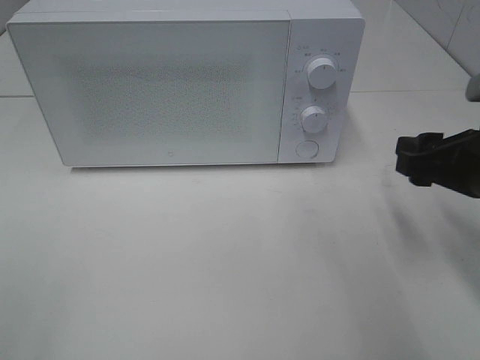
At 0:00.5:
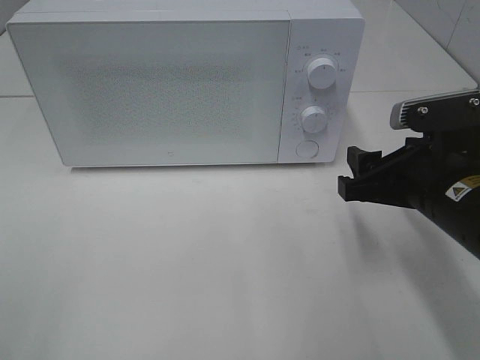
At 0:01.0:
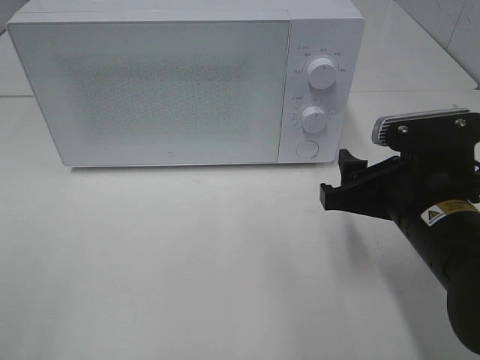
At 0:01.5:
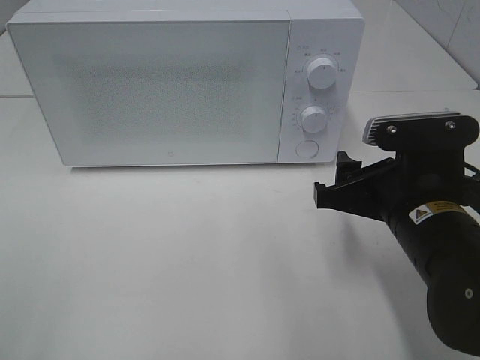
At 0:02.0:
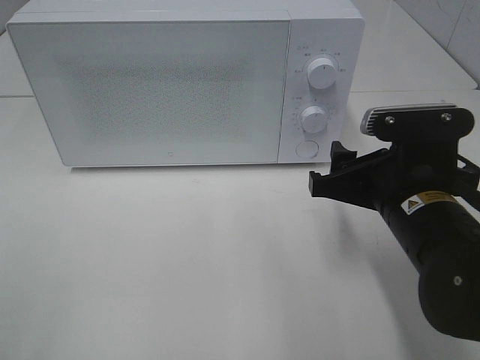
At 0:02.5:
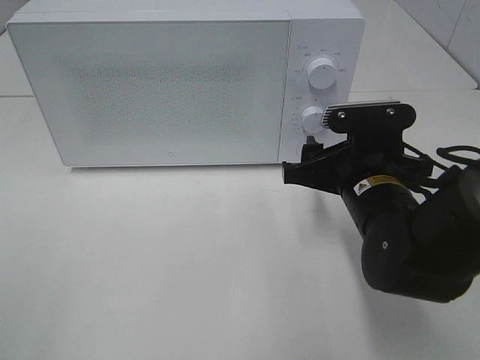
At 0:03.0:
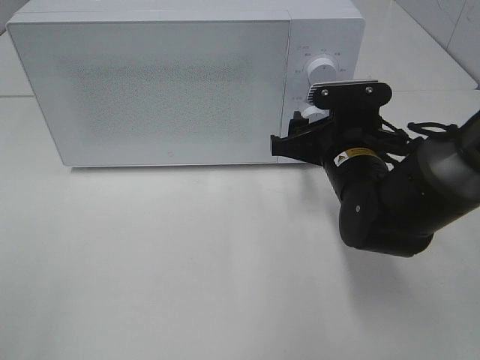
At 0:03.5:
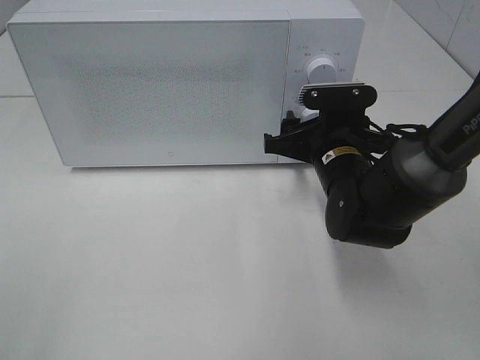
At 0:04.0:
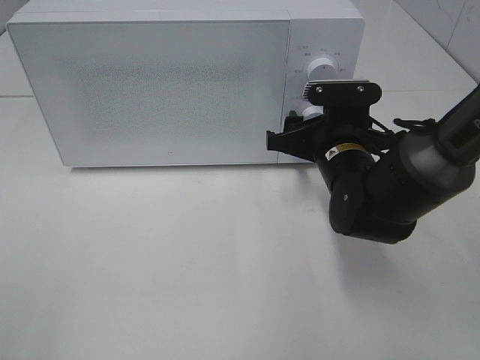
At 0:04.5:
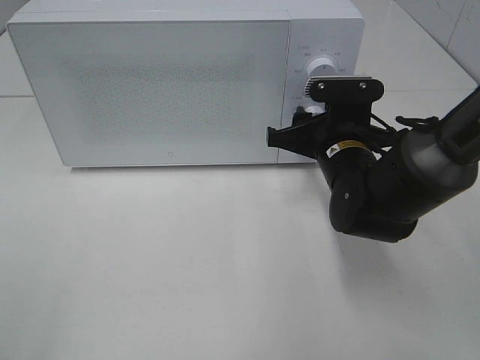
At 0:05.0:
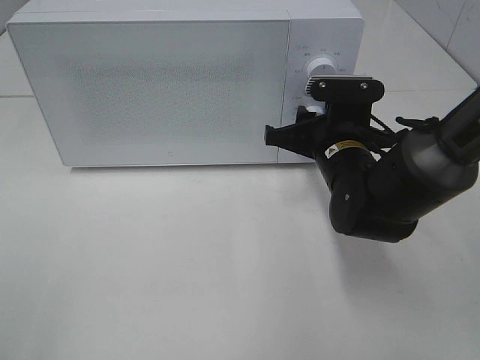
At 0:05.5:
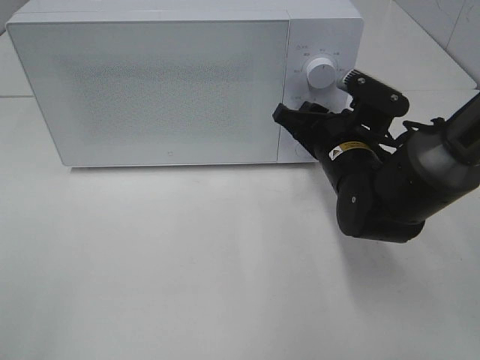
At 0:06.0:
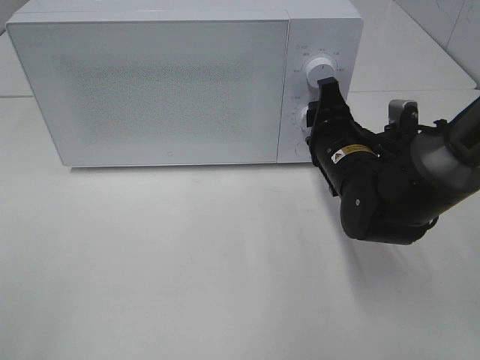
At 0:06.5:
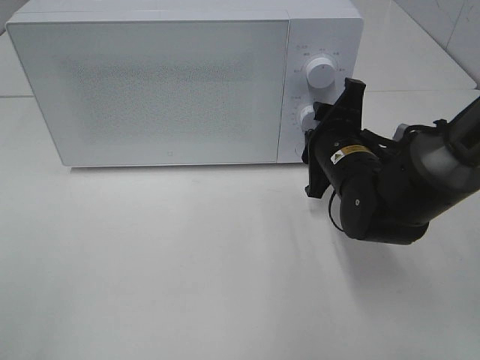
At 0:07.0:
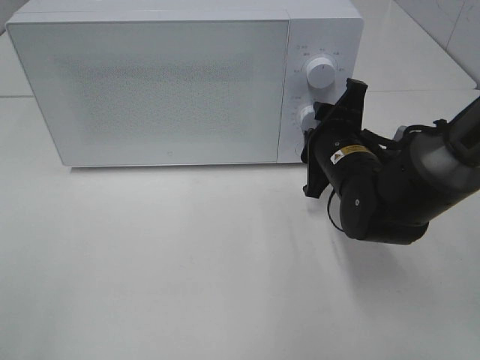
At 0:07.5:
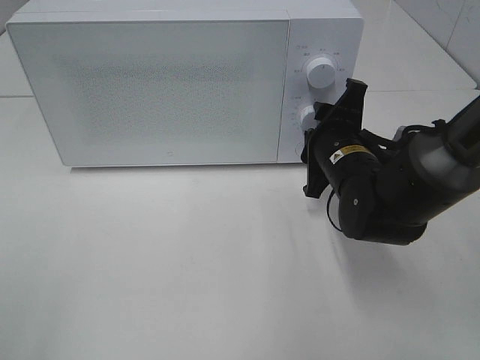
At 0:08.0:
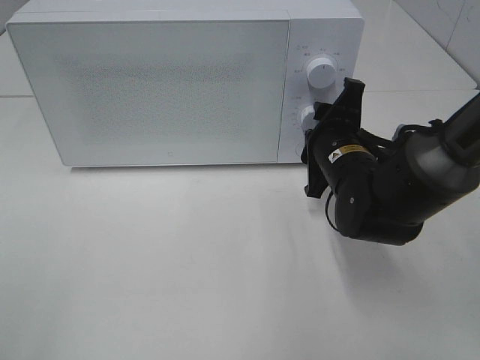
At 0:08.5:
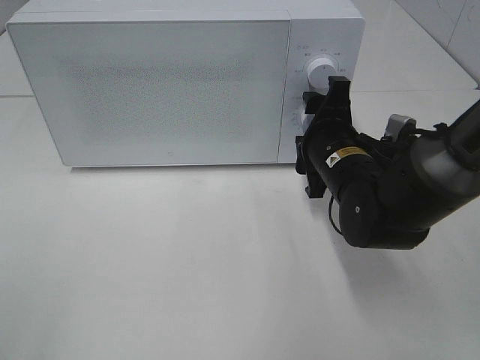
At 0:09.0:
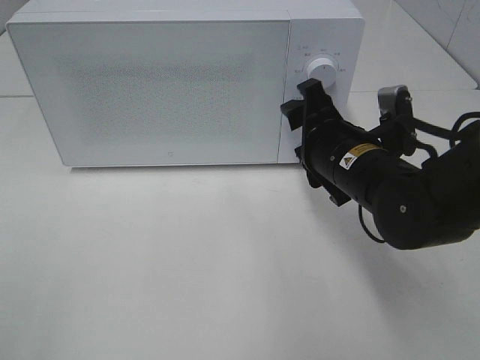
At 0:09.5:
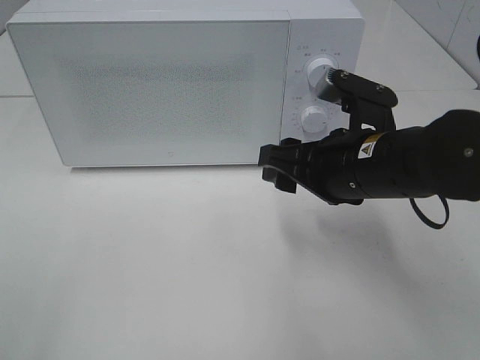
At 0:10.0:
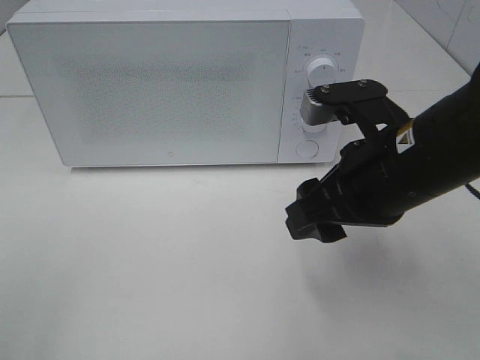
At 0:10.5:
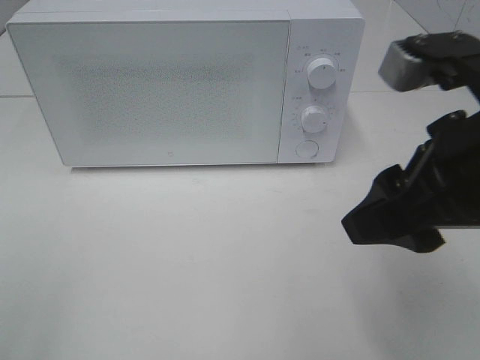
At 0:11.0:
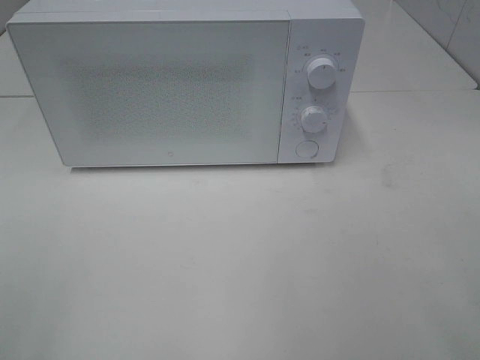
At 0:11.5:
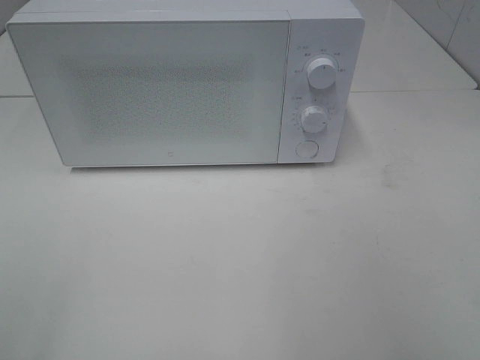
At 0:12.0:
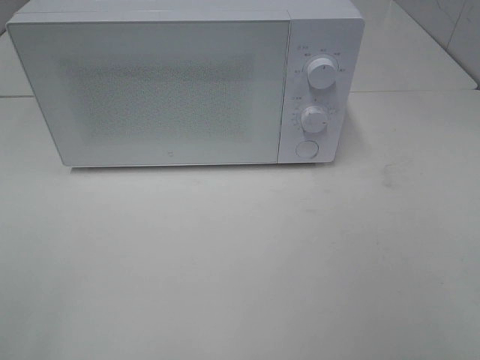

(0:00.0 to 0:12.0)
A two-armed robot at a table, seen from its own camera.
Task of the whole recording: Heat the burger.
Step, 0:00.0 - 0:08.0: Right hand: twist timer button.
0:00.0 - 0:02.0: The right gripper is displaced to the left by some 10 cm.
0:02.0 - 0:04.0: The right gripper moves forward, some 10 cm.
0:08.0 - 0:10.0: The right gripper moves backward and upward, about 15 cm.
0:10.0 - 0:12.0: The right gripper heads backward and to the right, covering roughly 25 cm.

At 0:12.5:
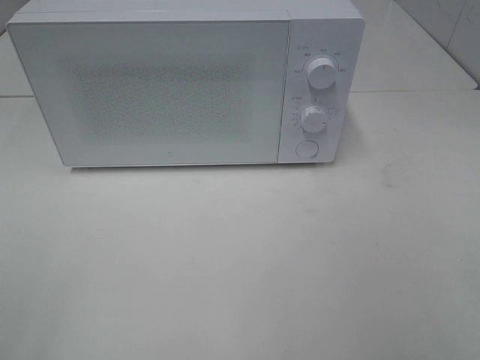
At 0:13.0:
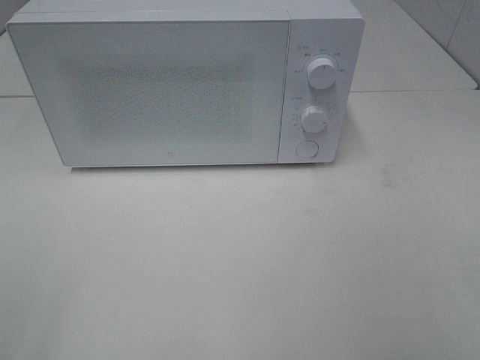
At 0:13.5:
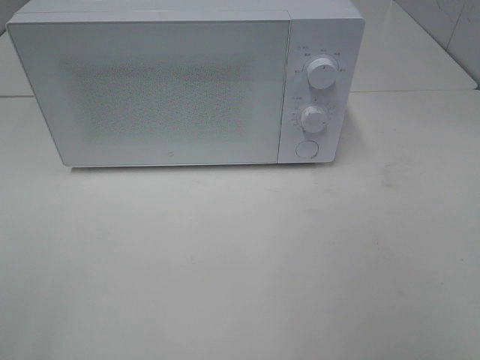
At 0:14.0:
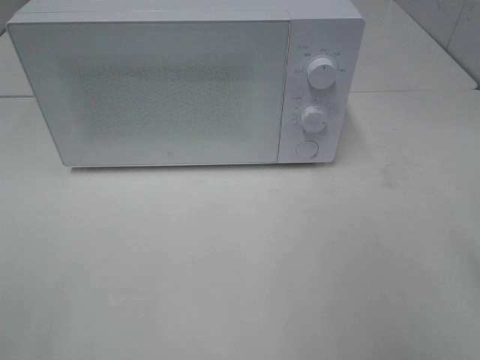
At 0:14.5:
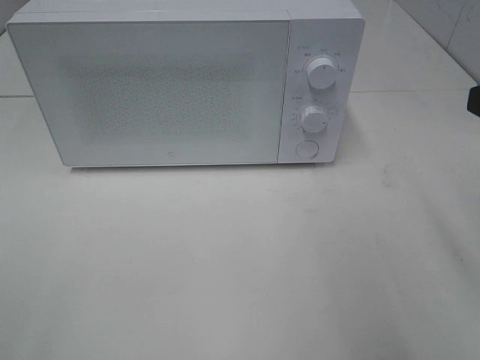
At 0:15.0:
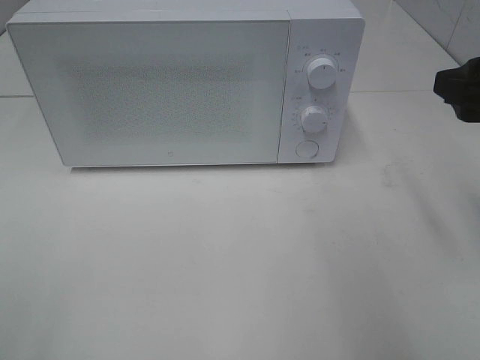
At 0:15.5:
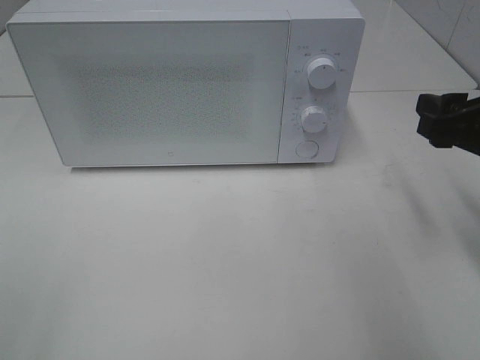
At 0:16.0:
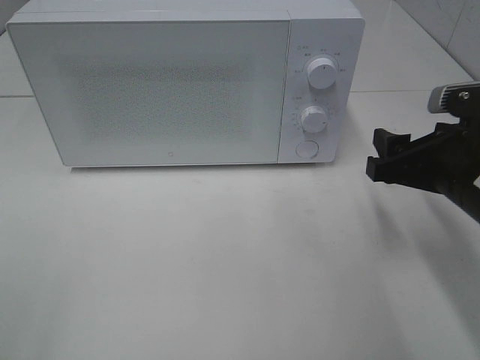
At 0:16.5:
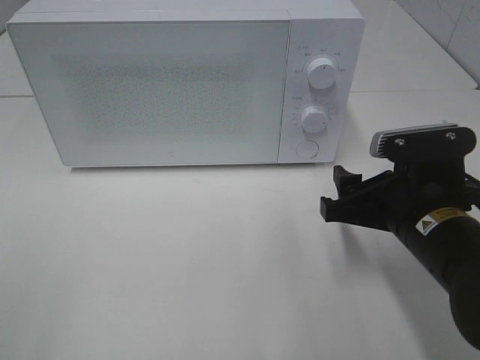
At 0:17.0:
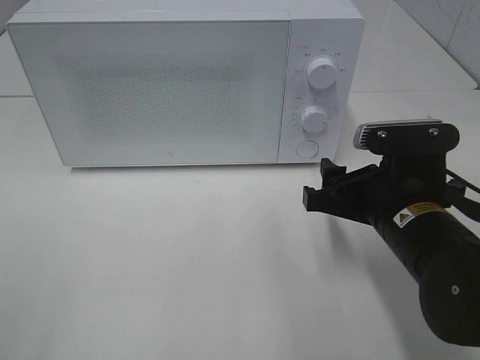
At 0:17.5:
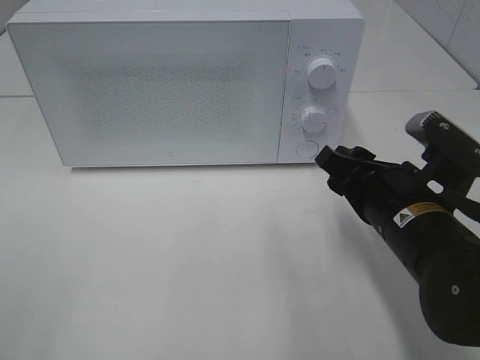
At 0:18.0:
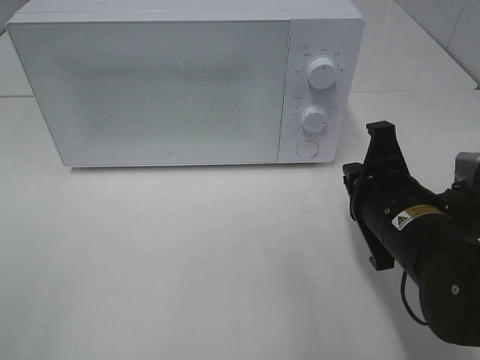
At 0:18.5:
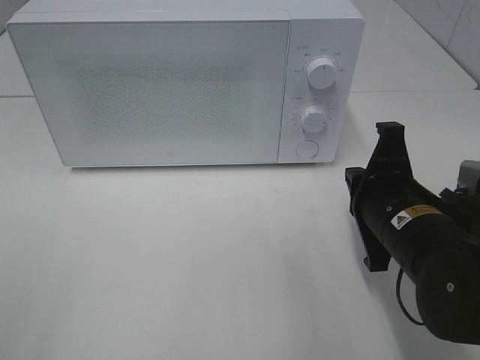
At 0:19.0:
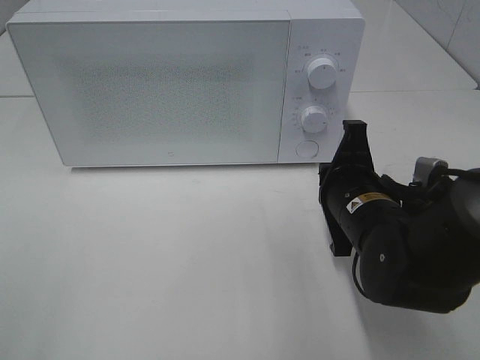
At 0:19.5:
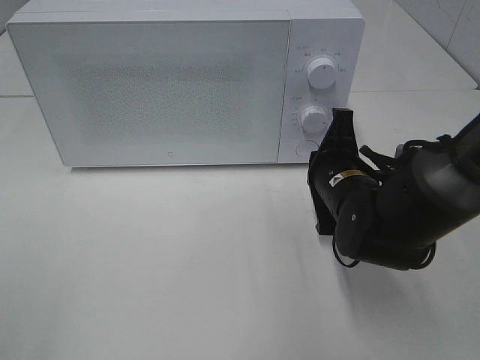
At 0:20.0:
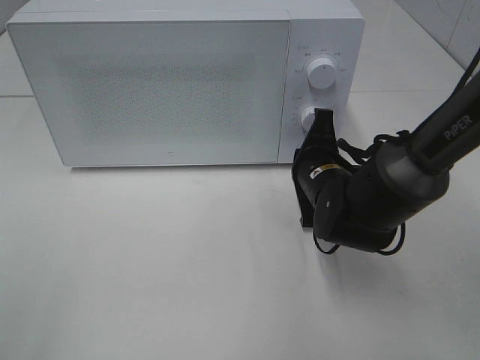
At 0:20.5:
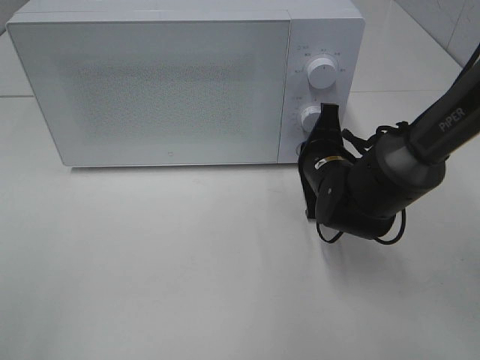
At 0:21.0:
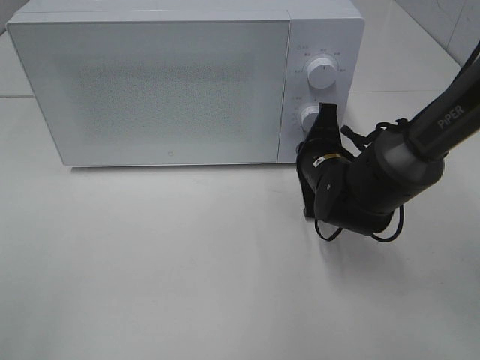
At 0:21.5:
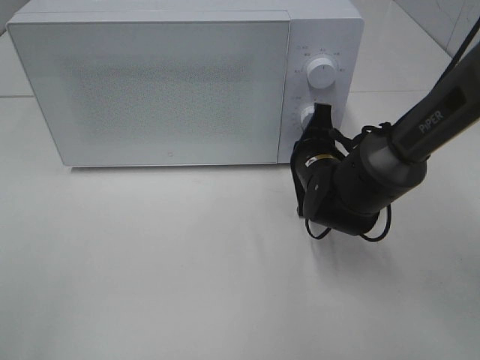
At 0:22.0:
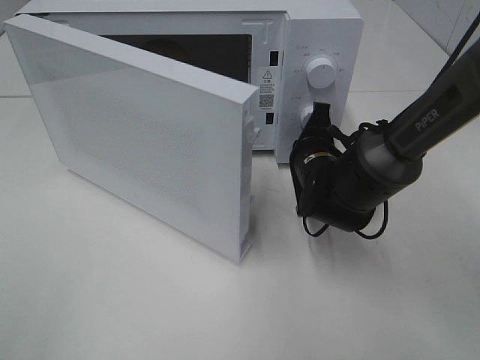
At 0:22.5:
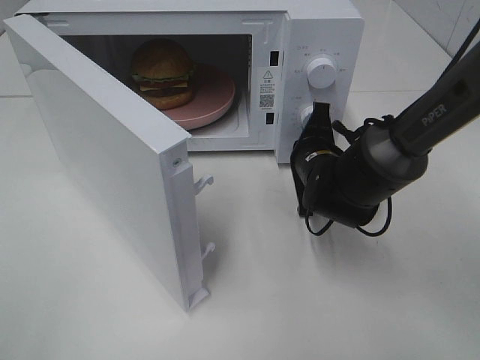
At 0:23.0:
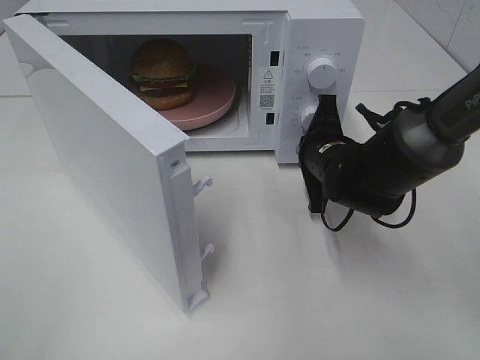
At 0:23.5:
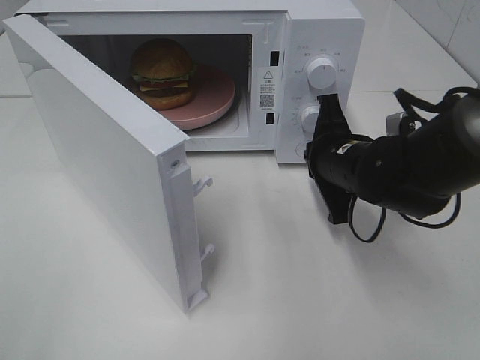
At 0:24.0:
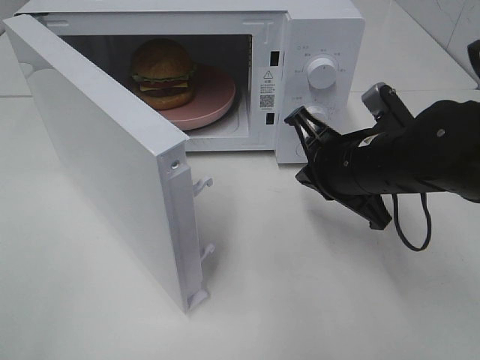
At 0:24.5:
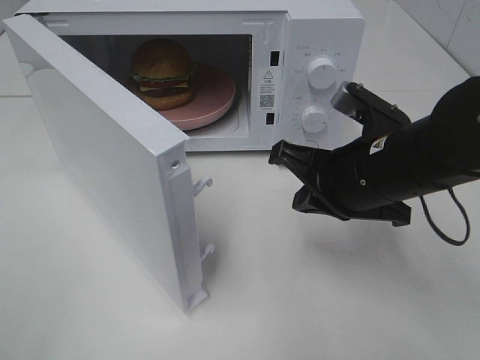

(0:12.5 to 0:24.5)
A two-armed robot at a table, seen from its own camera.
Task of the whole recording: Heat the burger.
Step, 0:12.5 - 0:23.0: Right hand: press the switch.
0:14.5 - 0:16.5: The right gripper moves downward and to the left, some 15 cm.
0:16.5 - 0:18.5: The right gripper closes.
0:18.5 - 0:20.5: The right gripper heads forward, covering roughly 15 cm.
0:22.5 - 0:24.5: The right gripper shifts about 15 cm backward and upward.

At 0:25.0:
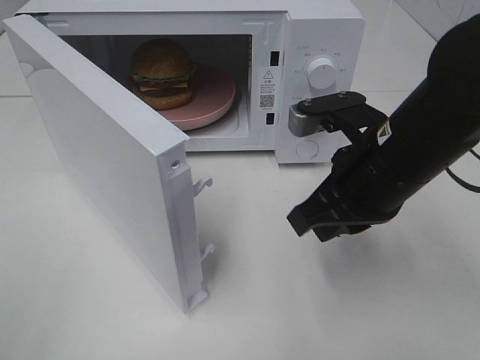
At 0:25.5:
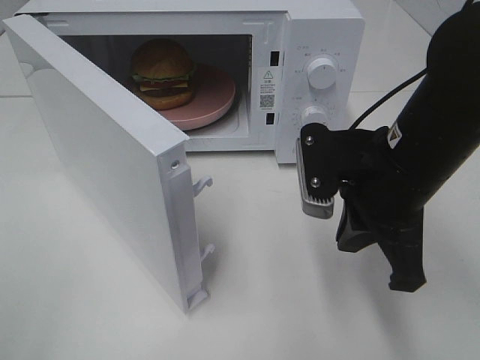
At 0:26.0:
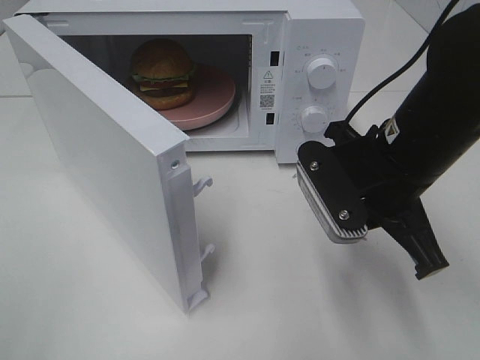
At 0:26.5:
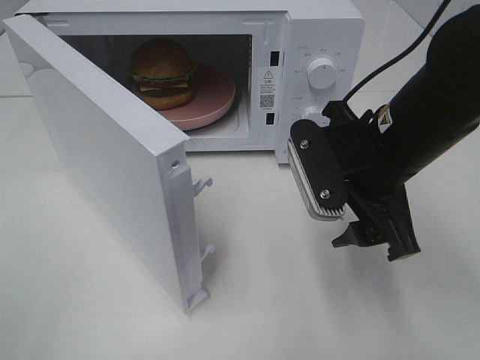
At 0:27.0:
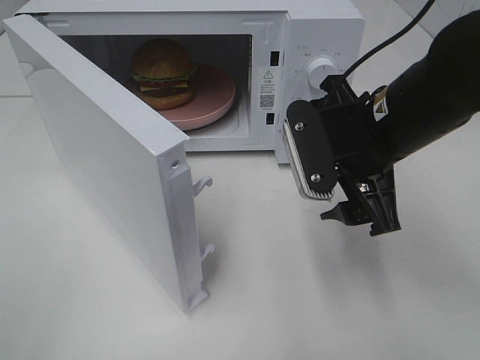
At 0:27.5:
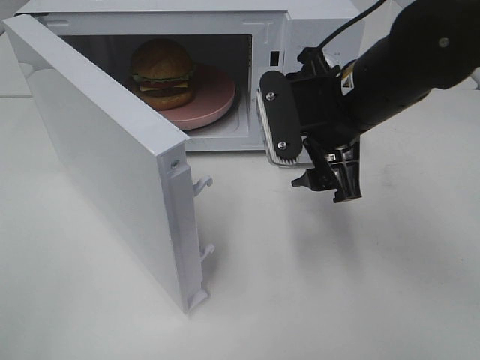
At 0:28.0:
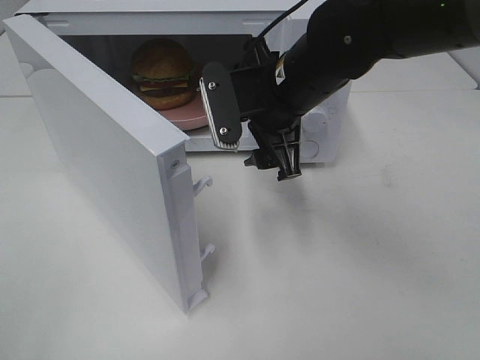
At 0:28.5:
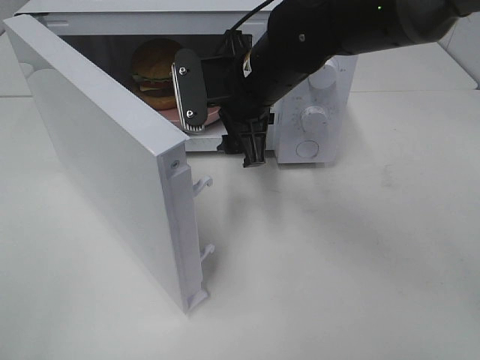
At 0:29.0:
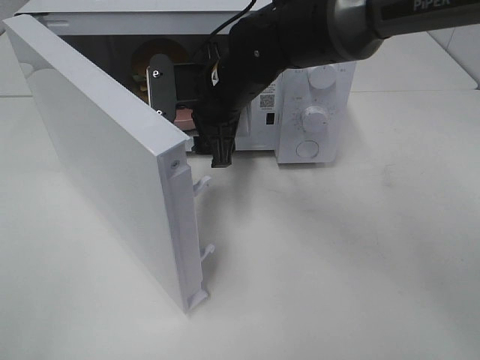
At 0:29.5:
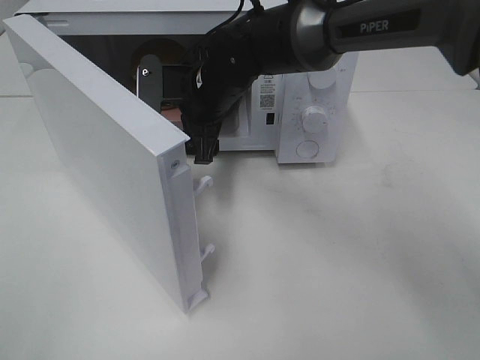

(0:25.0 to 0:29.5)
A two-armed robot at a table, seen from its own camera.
Task of the whole recording: Heat the burger.
0:25.0 - 0:27.0: The right gripper opens its fingers.
0:27.0 - 0:29.5: The right gripper heads to the left and forward, covering about 20 cm.
